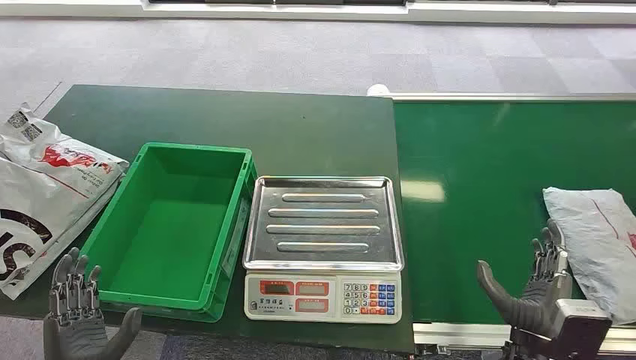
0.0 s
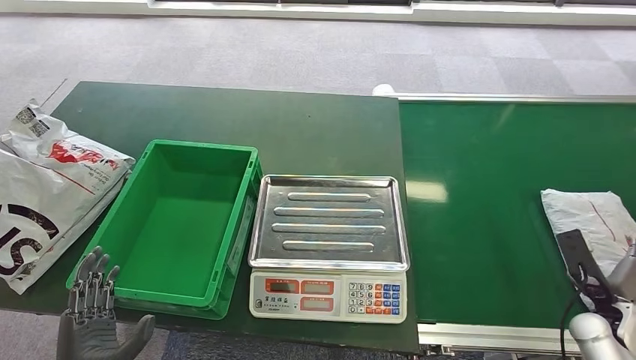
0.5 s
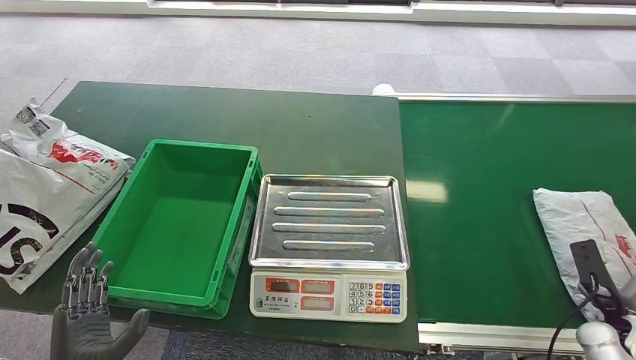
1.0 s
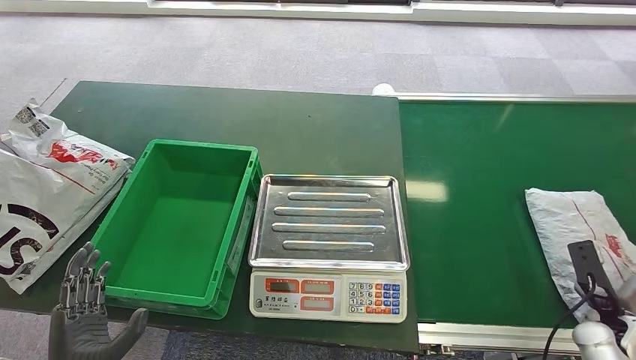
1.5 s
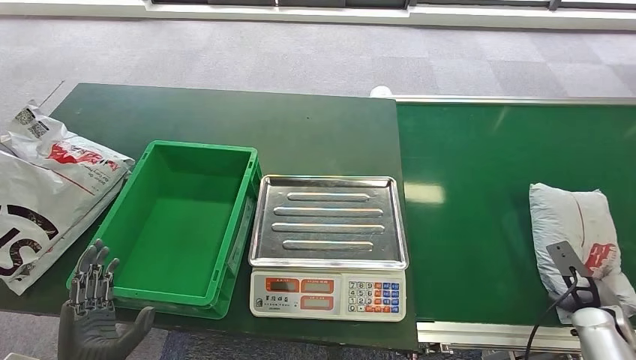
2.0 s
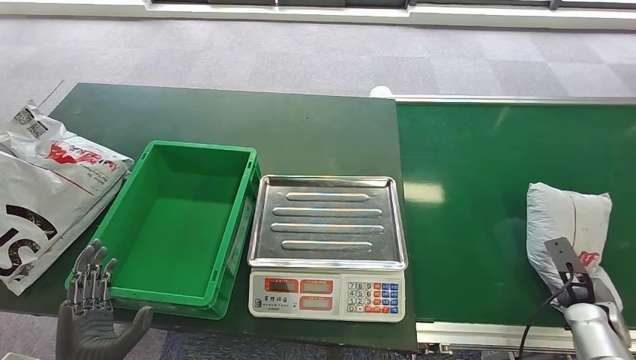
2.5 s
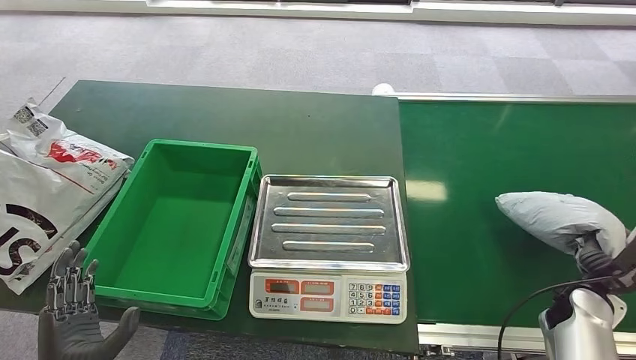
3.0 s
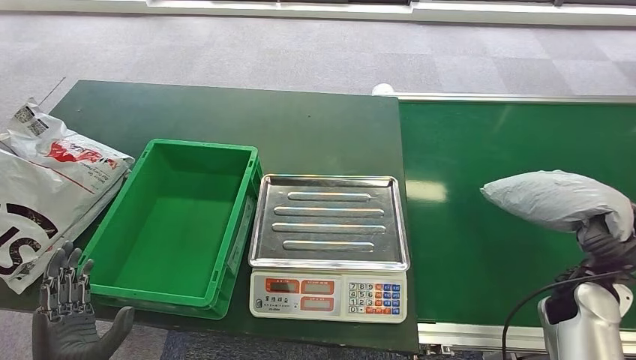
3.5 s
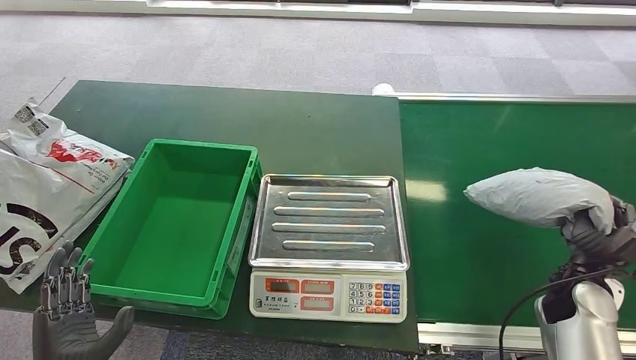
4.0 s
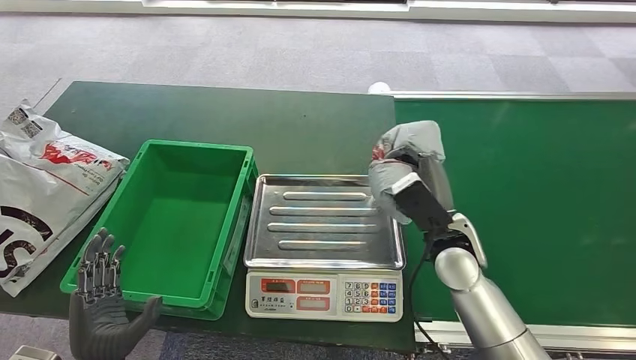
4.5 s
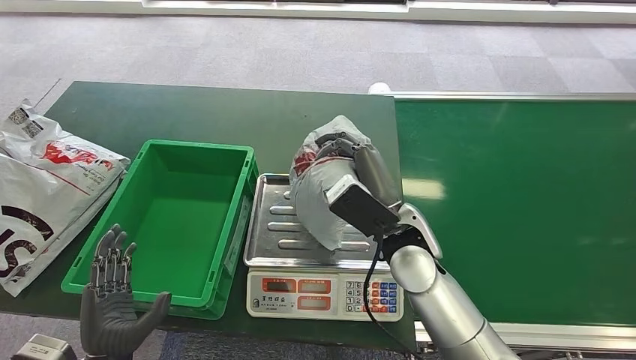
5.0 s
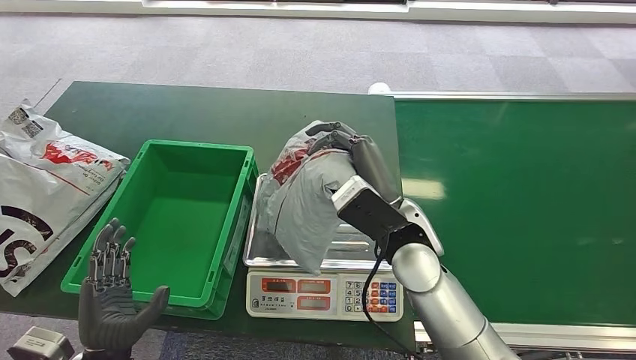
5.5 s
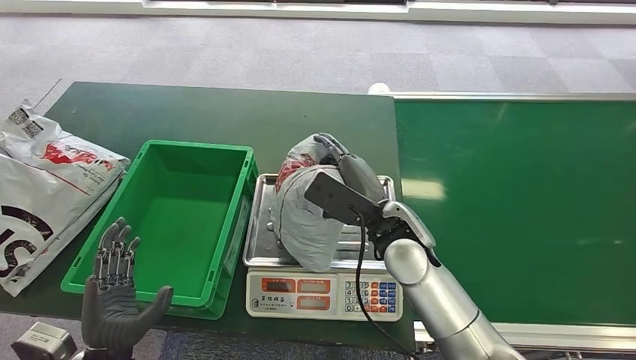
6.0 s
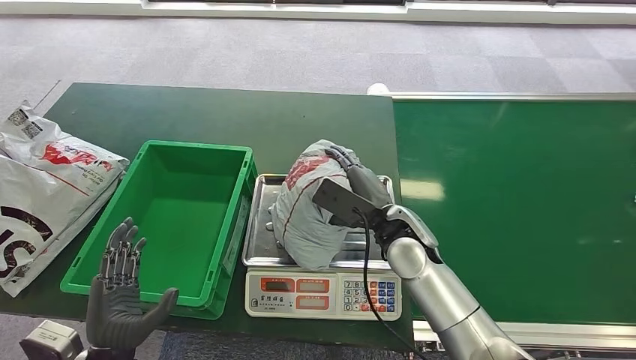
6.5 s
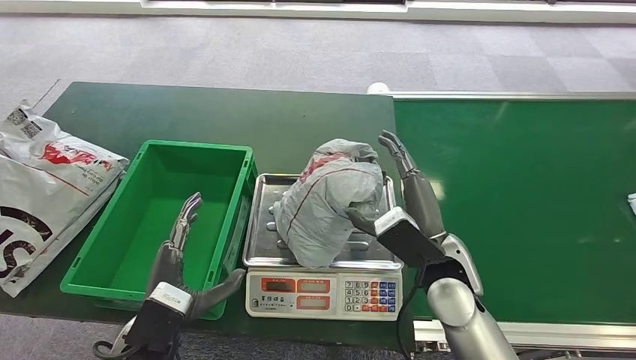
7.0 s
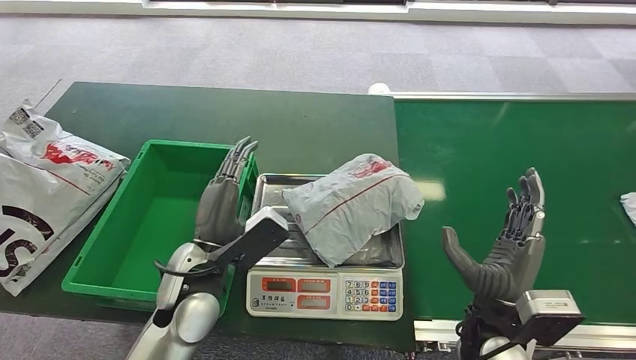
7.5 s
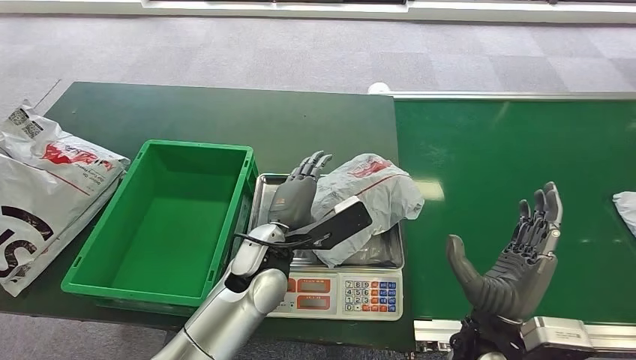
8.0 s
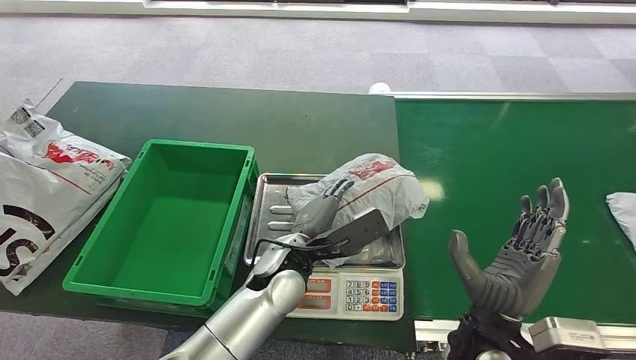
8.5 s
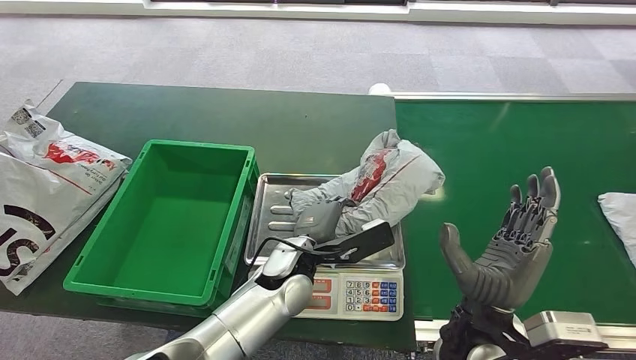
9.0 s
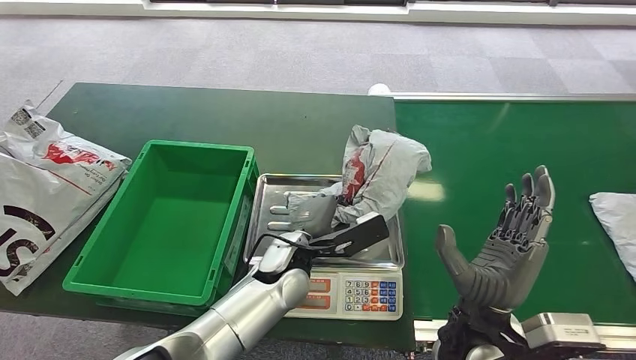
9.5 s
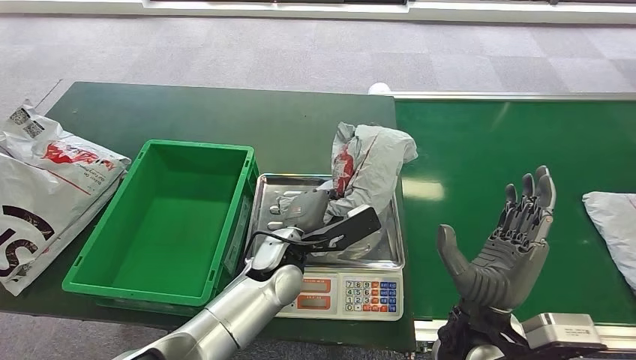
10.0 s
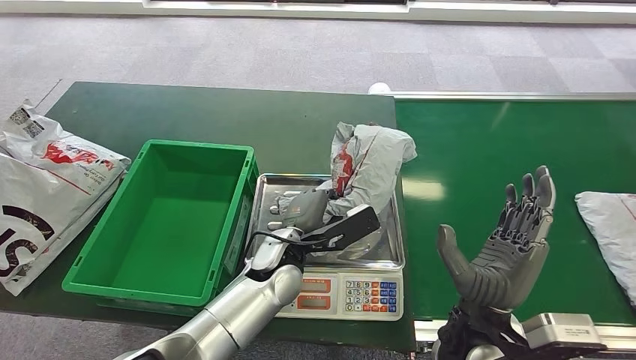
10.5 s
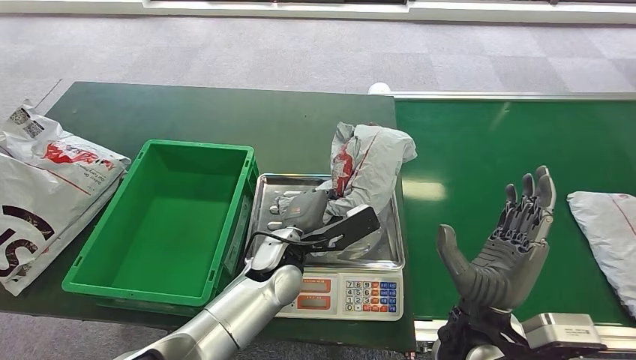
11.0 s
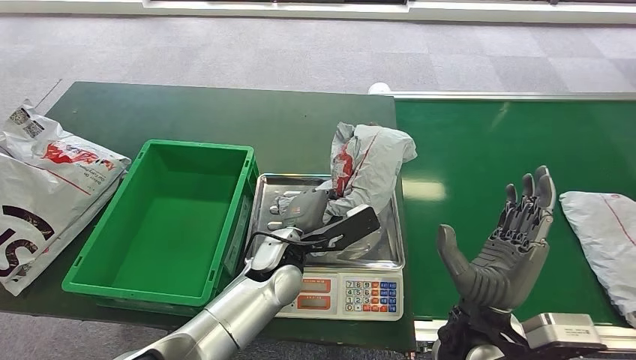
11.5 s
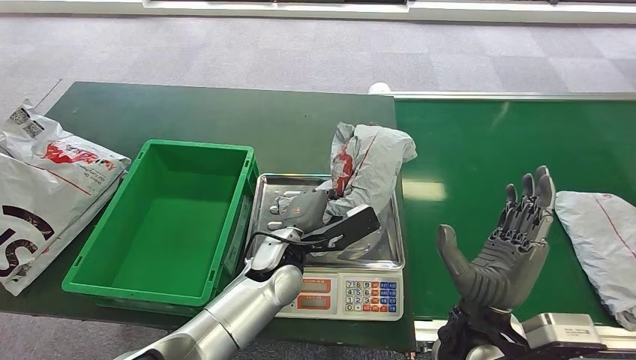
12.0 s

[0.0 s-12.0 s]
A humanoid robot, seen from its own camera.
Step, 0.0 to 3.5 s: Pick up the package from the conveyor belt.
Step, 4.0 to 6.5 s: Place the package onto the inbound machine.
6.0 to 8.0 s: The right hand travels backward and to the right by about 20 cm; the left hand moves to the right and forward, roughly 25 cm.
8.0 to 10.0 s: The hands stay close to where they were, moving slightly.
10.0 to 12.0 s: Neither hand changes place.

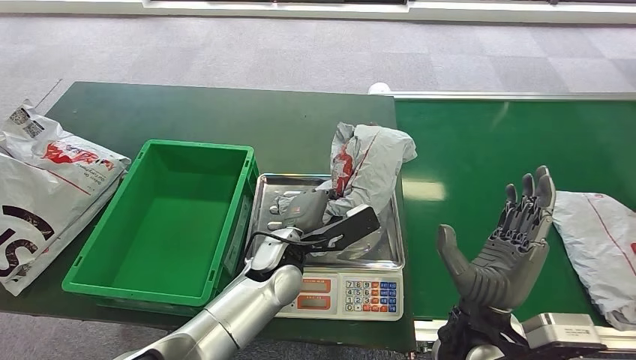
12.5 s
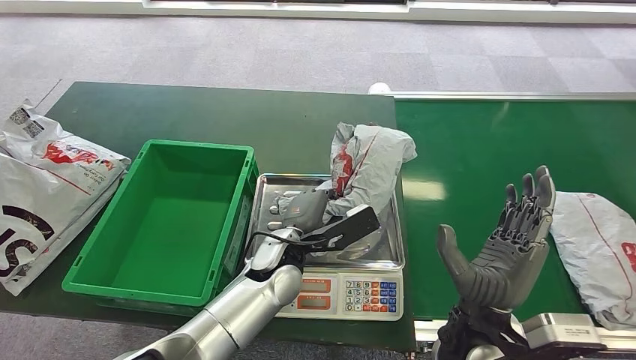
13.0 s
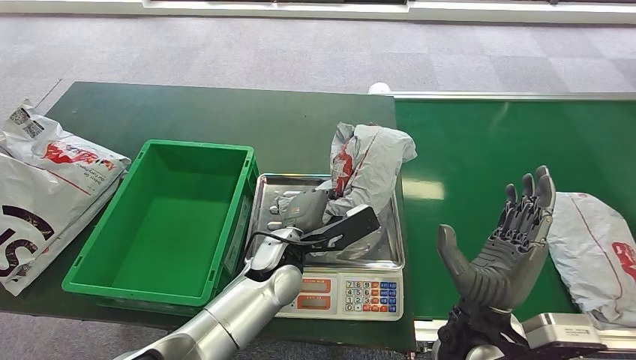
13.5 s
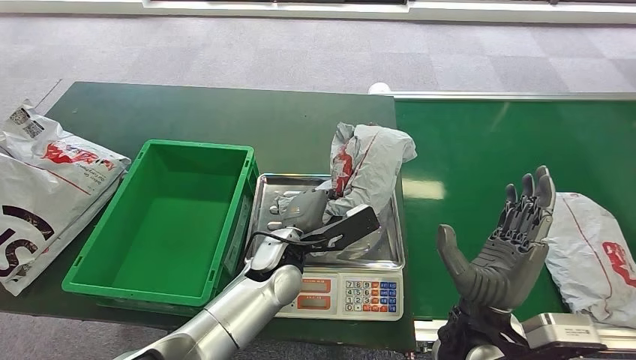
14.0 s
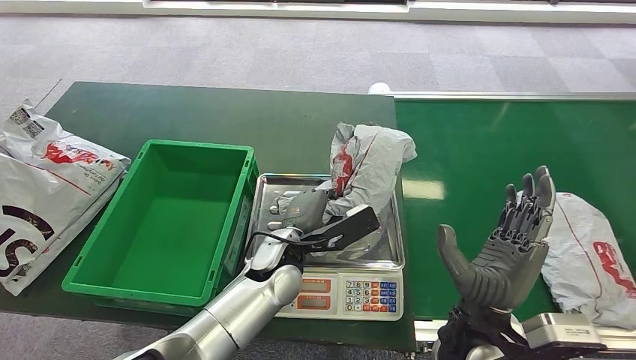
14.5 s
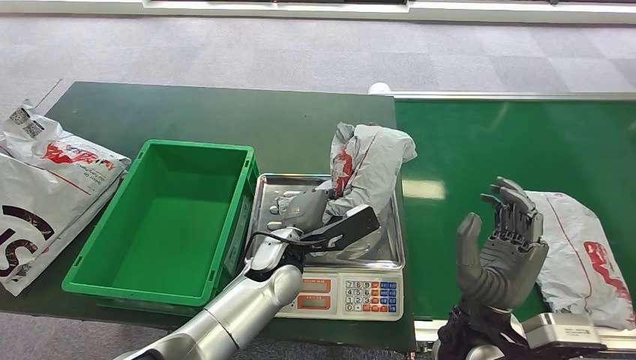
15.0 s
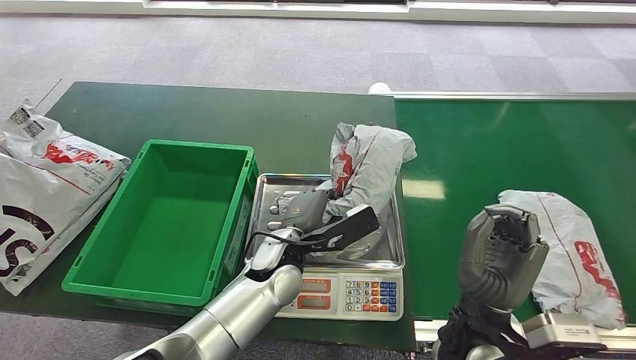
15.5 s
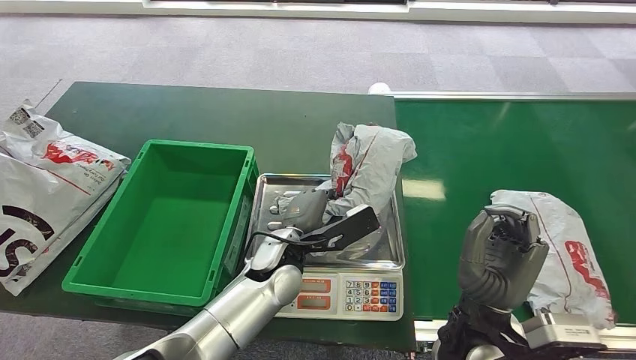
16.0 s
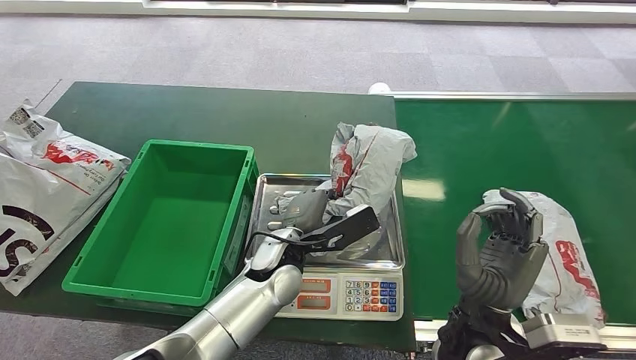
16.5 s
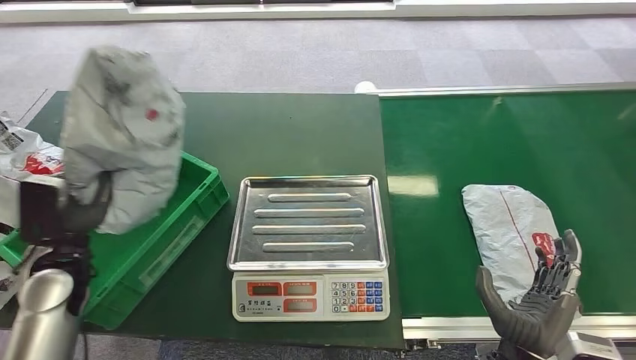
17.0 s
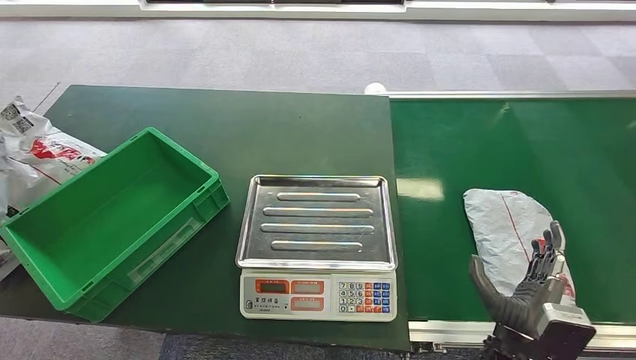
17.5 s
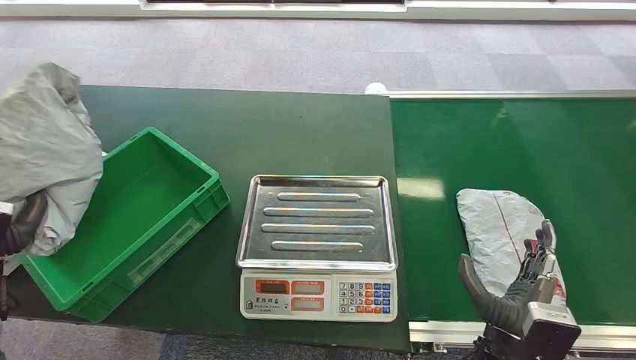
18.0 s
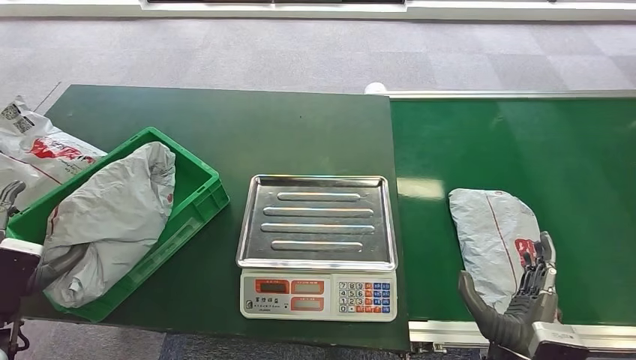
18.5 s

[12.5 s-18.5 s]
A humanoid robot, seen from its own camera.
Step, 12.5 to 17.0 s: Pick up the package from the inbound machine.
Step, 17.5 to 18.5 s: Place the package into the parcel locker.
12.5 to 16.5 s: Neither hand changes place.
